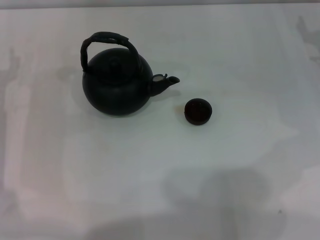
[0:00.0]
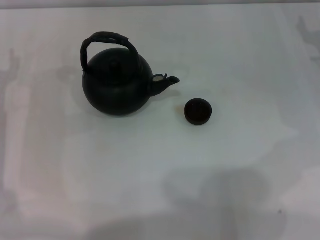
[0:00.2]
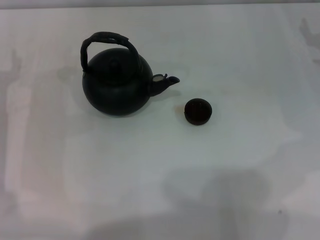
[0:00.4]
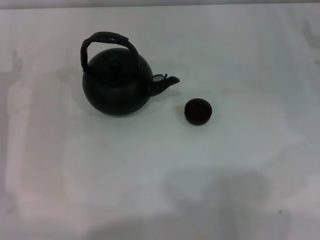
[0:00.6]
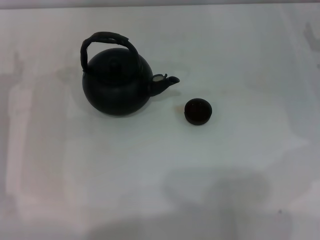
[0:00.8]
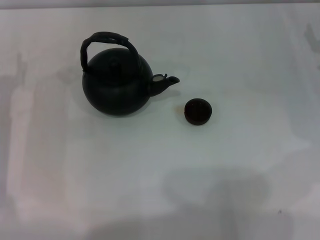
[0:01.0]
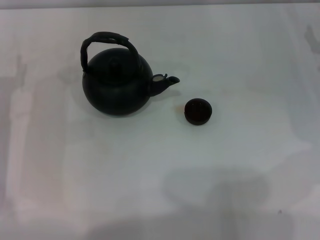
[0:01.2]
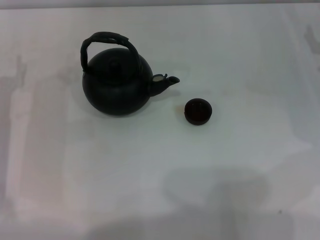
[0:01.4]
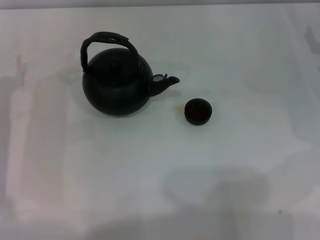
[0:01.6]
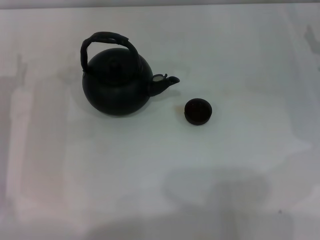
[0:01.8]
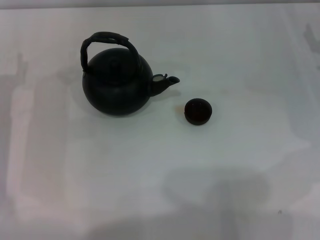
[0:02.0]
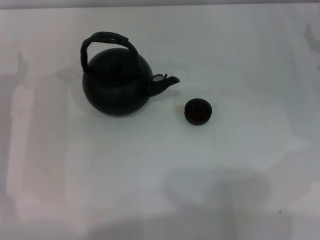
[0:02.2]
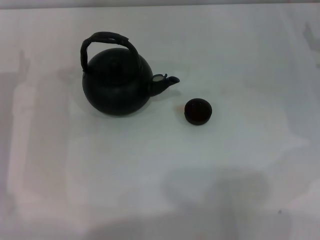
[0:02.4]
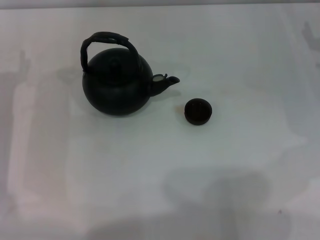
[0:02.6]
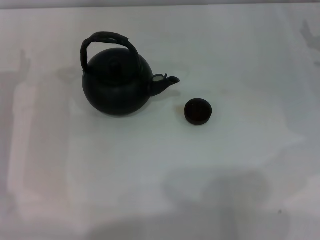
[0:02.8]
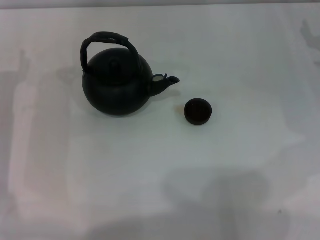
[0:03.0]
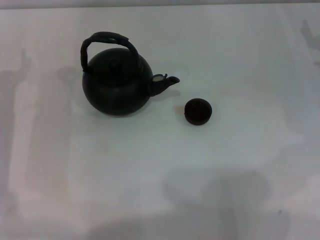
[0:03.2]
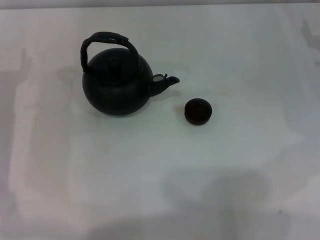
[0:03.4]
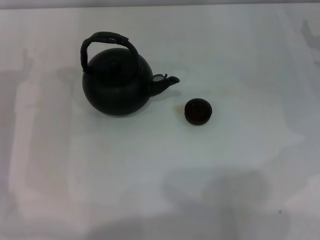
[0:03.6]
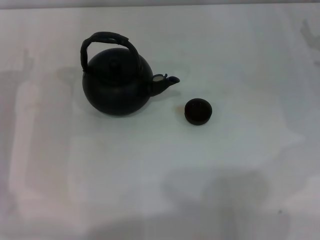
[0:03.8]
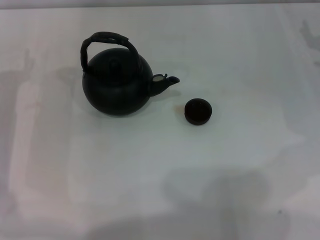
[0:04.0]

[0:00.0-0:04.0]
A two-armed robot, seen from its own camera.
Task of the whole recording: Grasp the handle of the teapot with one hand and pour tea into the teacup.
0:01.4 to 0:02.6: Both grippers stay put.
0:02.6 to 0:04.0: Both grippers stay put.

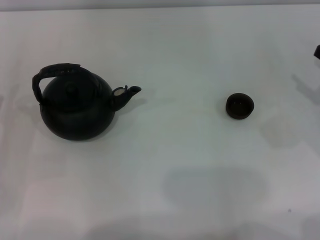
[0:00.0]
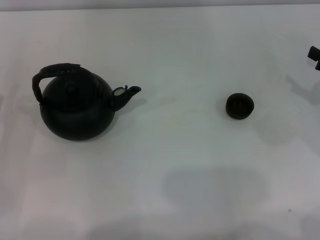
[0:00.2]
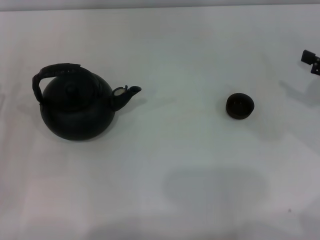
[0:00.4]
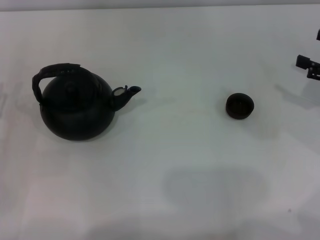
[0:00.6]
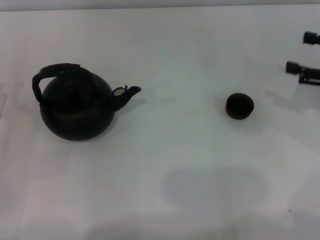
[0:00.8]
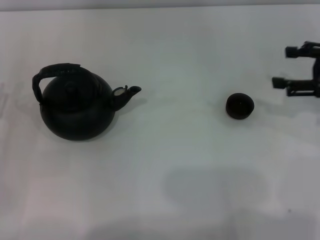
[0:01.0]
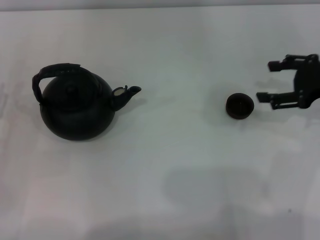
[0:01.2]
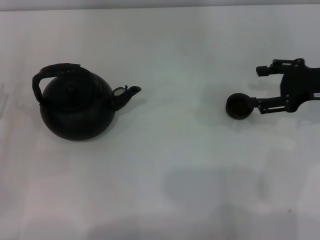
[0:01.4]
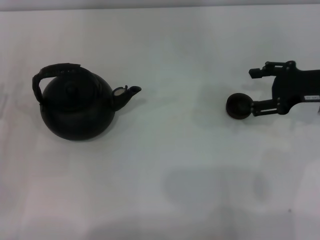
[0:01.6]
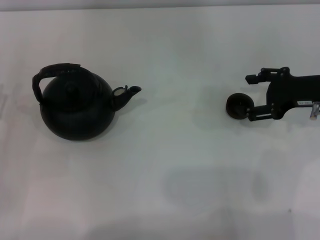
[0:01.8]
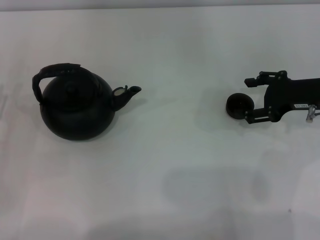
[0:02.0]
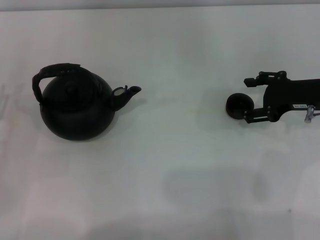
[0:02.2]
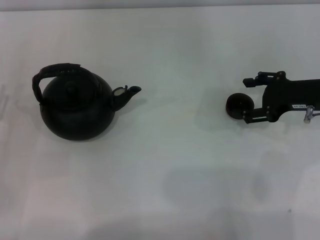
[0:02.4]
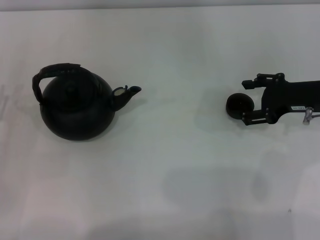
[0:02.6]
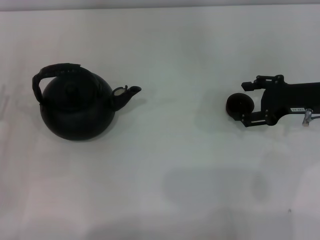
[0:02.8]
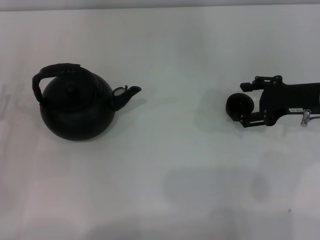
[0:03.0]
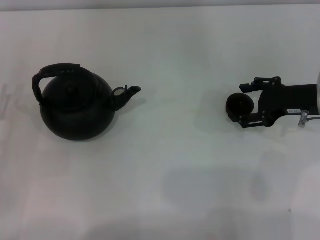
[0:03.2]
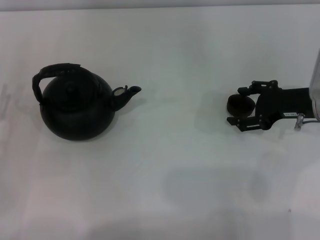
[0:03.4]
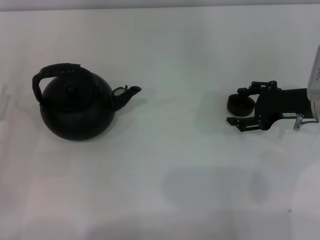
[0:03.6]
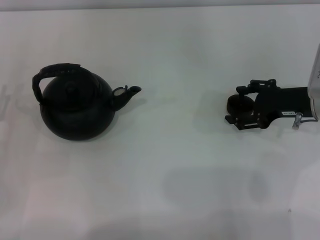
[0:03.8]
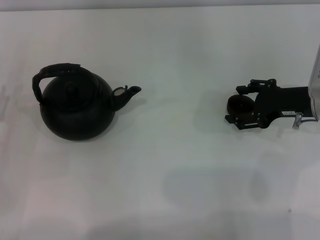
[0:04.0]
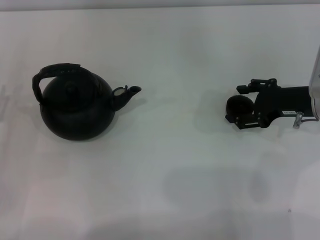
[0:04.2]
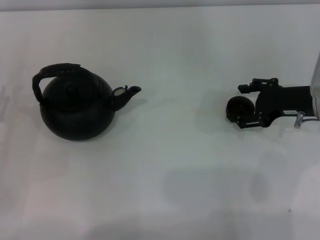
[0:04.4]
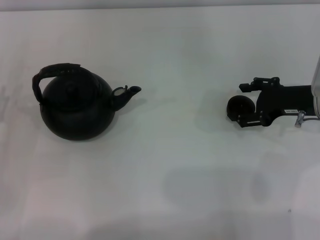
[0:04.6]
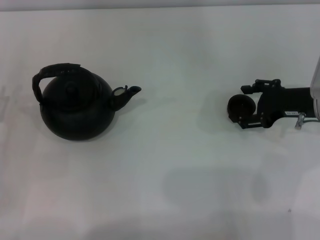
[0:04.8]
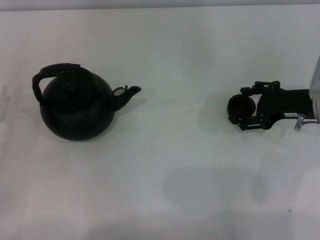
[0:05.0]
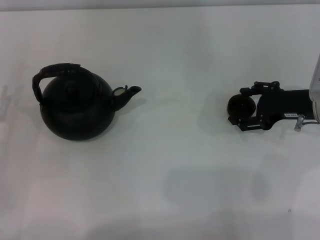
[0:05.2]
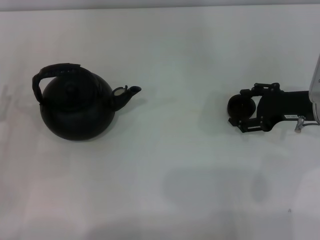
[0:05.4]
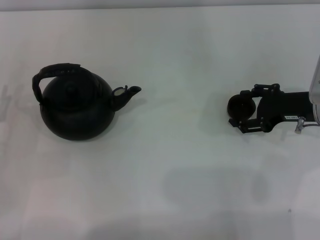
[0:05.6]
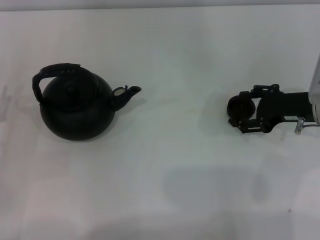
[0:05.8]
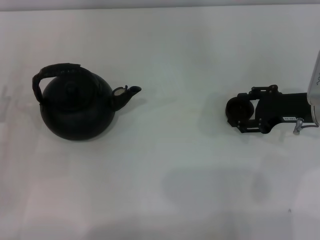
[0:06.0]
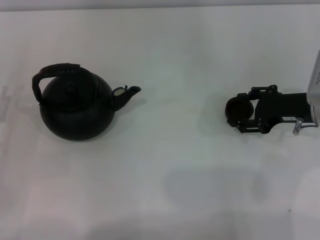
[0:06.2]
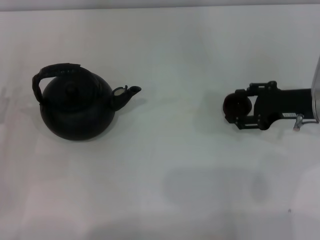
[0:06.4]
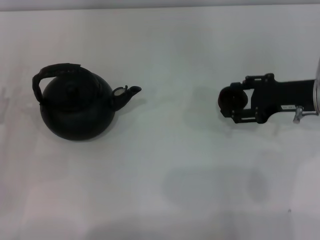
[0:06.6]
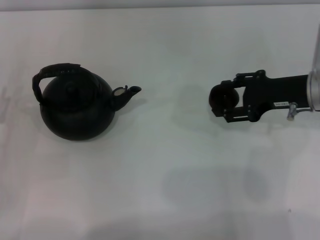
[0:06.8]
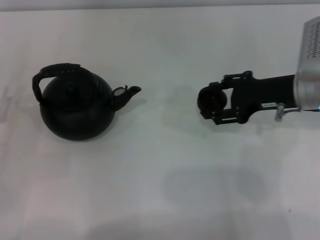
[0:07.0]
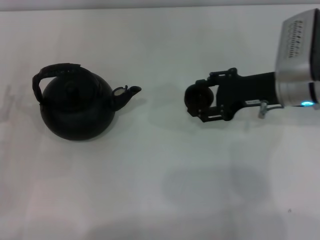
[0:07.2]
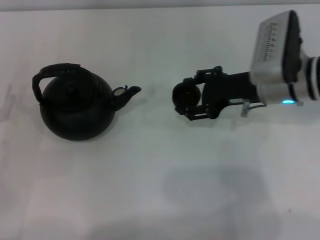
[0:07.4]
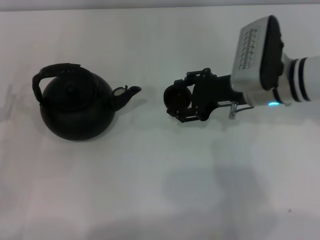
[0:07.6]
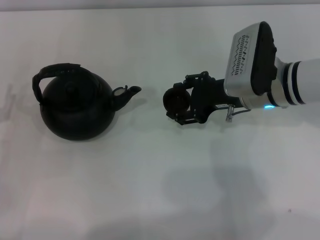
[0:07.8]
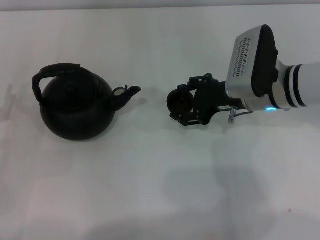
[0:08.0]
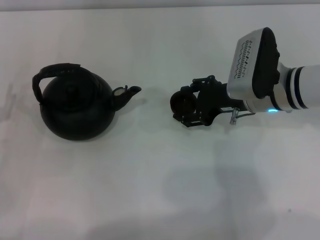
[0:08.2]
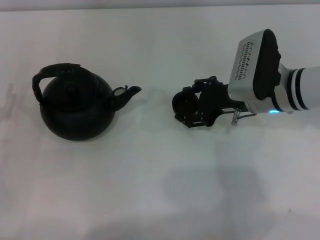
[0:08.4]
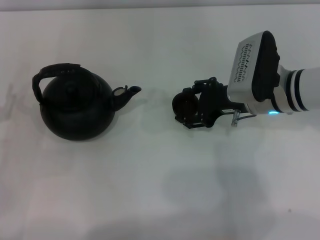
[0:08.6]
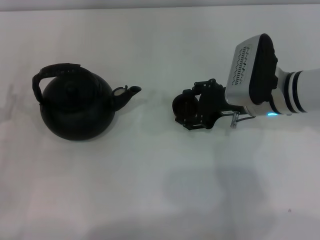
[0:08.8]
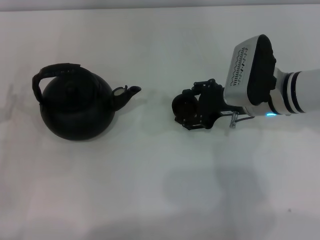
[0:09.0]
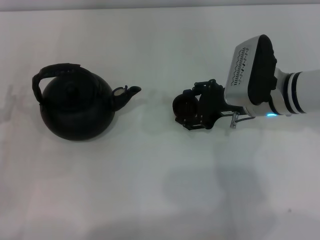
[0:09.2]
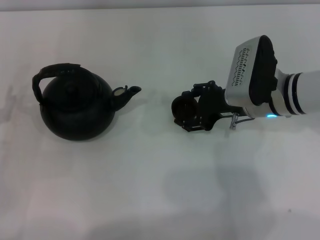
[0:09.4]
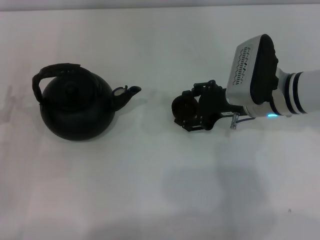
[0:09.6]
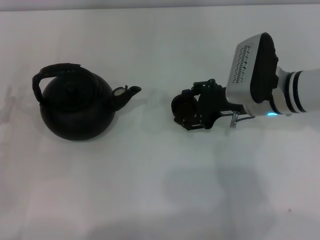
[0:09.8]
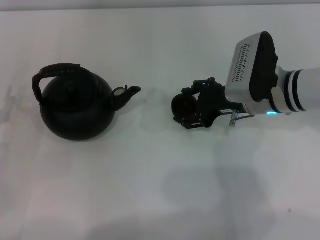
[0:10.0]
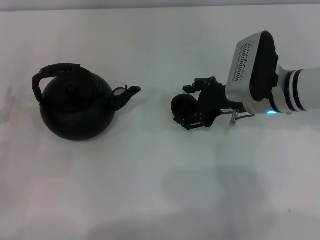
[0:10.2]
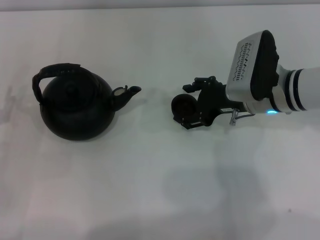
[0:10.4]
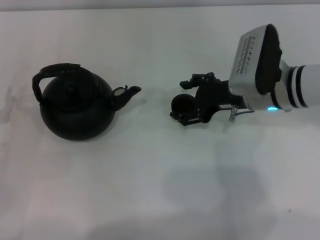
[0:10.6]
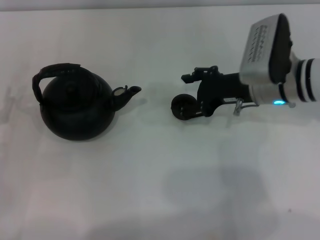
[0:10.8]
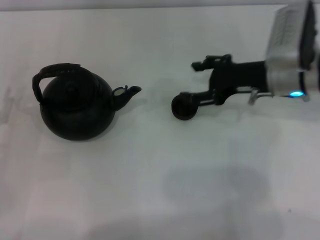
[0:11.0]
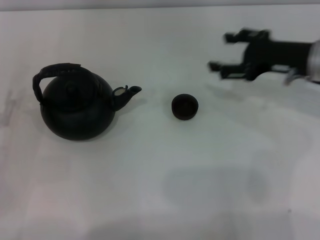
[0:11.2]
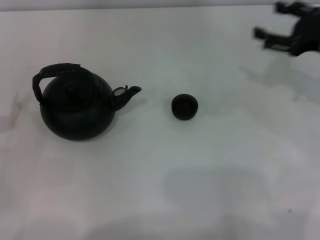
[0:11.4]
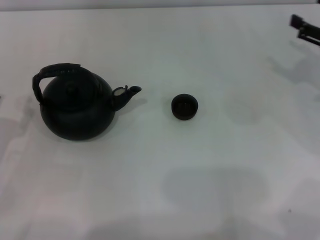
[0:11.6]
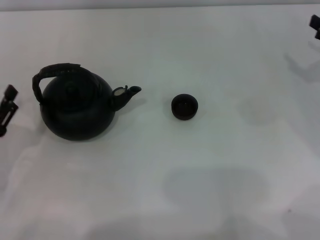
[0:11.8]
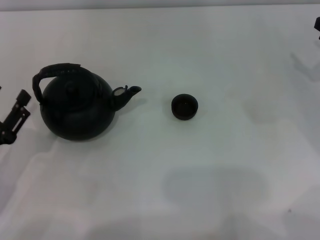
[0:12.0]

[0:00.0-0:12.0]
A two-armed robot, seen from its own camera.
Task of the whole recording: Grasp the handle of the teapot with one hand and pour tea into the teacup.
Step, 0:00.0 to 0:06.6: Pick up the teacup with the right gripper.
Step, 0:06.8 to 0:11.0: Place the teacup in the center of view with the right gripper.
0:00.0 to 0:01.6: The right gripper is displaced to the left and forward by approximately 10 cm.
0:01.6 to 0:03.0: There are only small adjustments of the grippers.
0:03.0 to 0:04.4: The two grippers keep their place.
0:04.4 to 0:06.0: The two grippers keep their place.
0:06.0 to 0:07.6: The right gripper is displaced to the left by about 10 cm, and closes.
0:07.6 to 0:09.0: The grippers make only small movements.
0:09.0 to 0:10.4: The right gripper opens up.
0:10.4 to 0:12.0: The left gripper ends up approximately 5 cm from where it was. Meanwhile the right gripper shifts some 20 cm to the right.

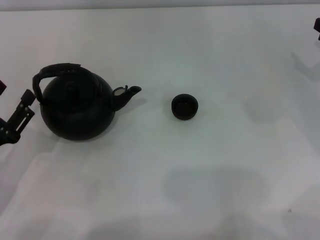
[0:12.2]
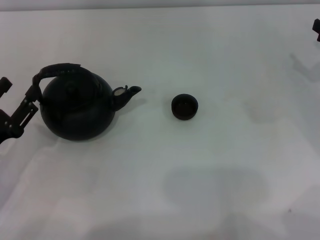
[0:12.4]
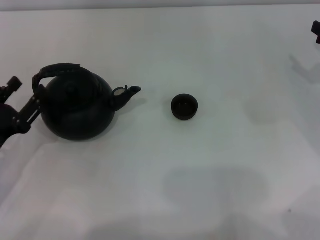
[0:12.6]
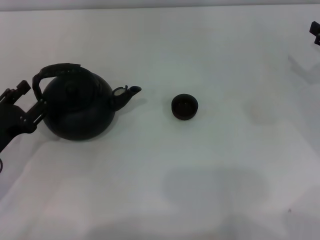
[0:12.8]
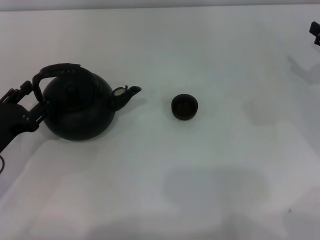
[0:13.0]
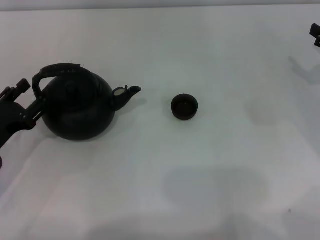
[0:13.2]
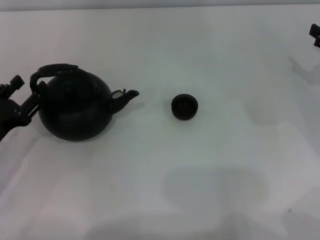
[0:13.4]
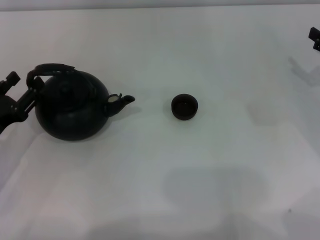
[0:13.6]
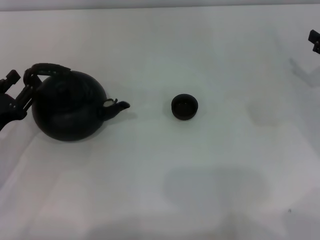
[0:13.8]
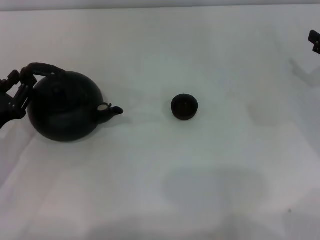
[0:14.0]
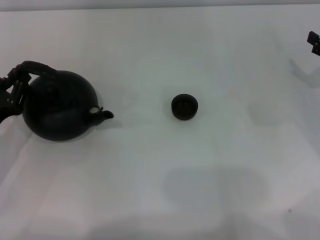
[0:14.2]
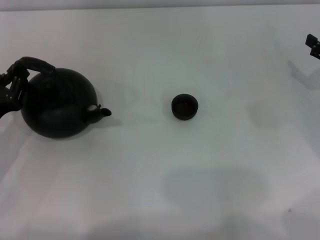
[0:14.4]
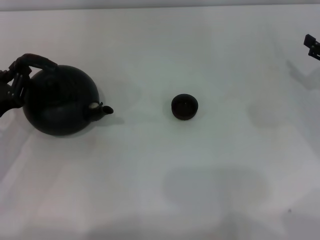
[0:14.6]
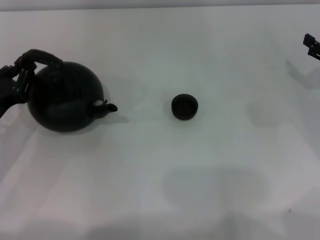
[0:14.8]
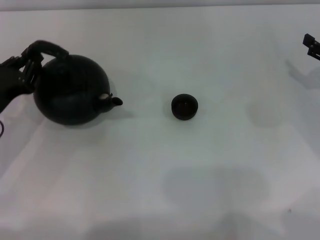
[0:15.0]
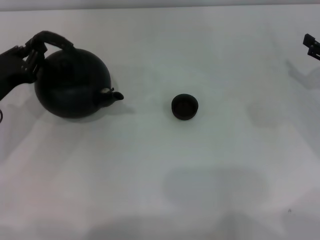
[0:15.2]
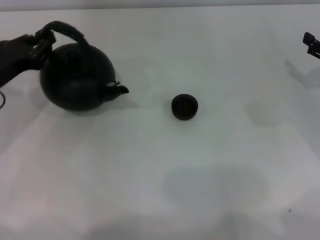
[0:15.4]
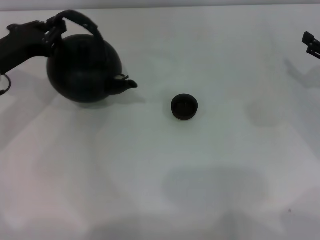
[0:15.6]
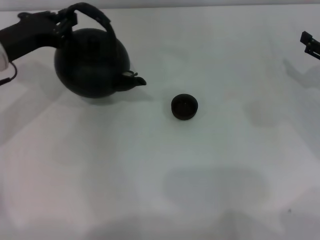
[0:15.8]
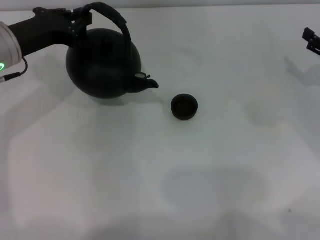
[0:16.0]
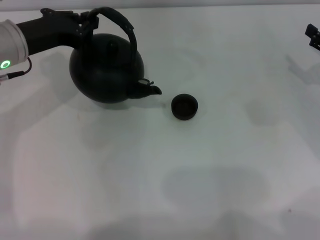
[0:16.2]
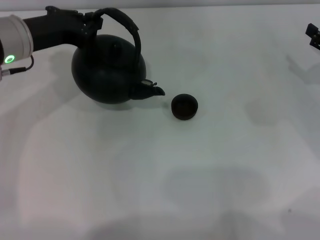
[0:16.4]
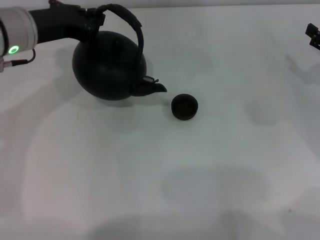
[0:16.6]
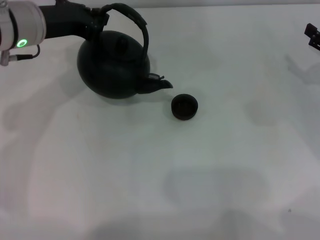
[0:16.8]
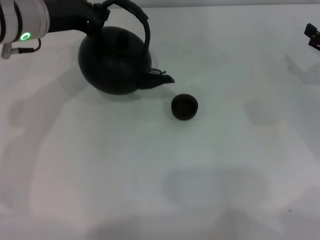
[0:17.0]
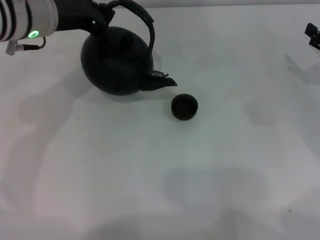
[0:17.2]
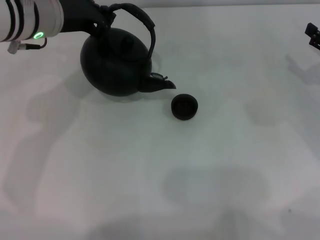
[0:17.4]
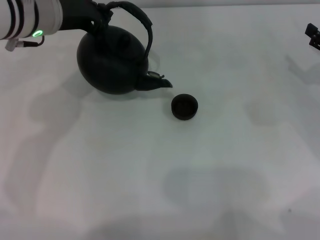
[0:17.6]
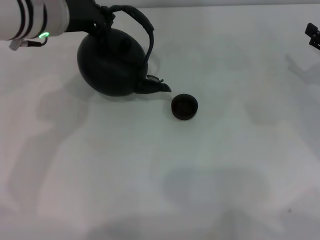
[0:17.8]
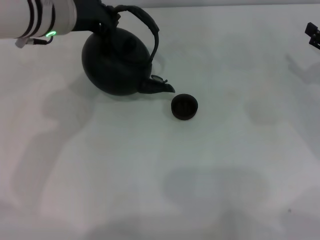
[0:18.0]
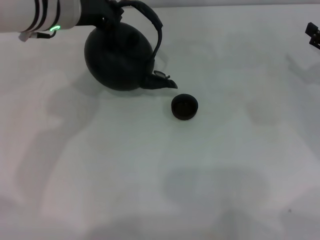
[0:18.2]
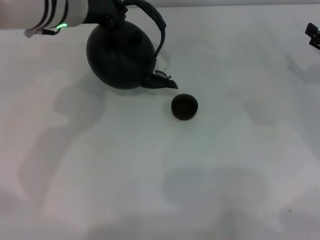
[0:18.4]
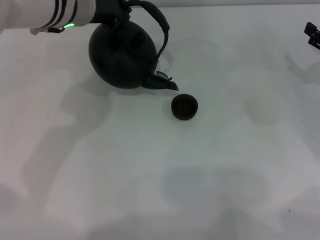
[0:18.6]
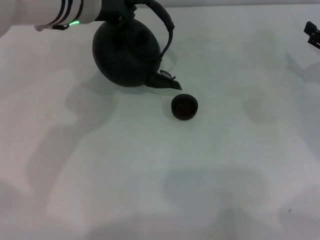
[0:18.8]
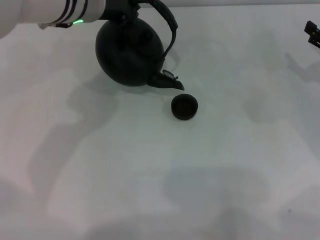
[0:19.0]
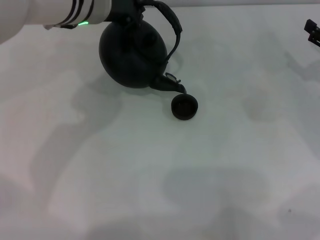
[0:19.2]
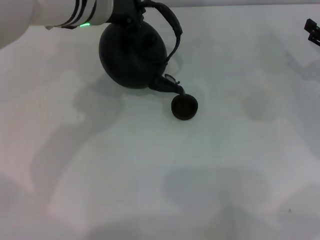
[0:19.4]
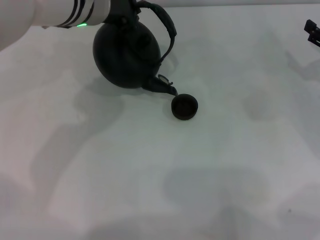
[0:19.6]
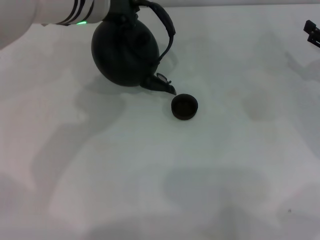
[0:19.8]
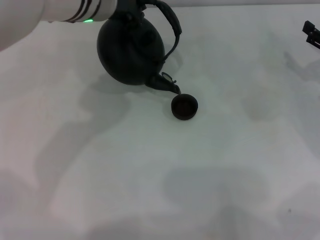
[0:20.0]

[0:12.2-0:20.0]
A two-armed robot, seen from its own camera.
Task of the whole recording: Grasp the handle of the teapot with one hand and pour tea into the teacup.
Step, 0:12.2 to 0:15.2: Pick up the teapot with the left gripper.
0:12.2 to 0:13.8: The left gripper moves forward, approximately 5 cm.
0:13.8 to 0:15.4: The left gripper is displaced forward and upward by about 10 cm, and closes its fingers.
0:15.4 to 0:16.8: The left gripper is displaced to the right, upward and forward by roughly 15 cm.
0:16.8 to 0:18.4: The left gripper goes some 5 cm to the right.
0:18.4 to 0:20.0: The grippers make only small movements.
